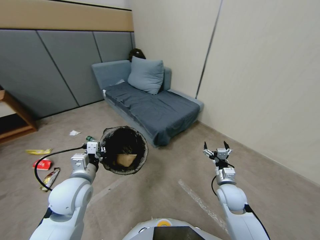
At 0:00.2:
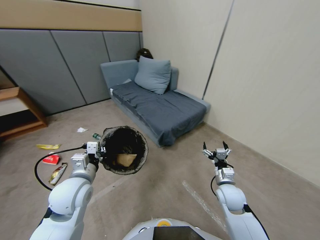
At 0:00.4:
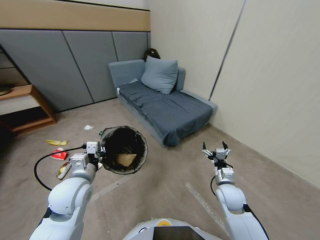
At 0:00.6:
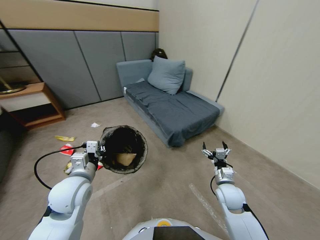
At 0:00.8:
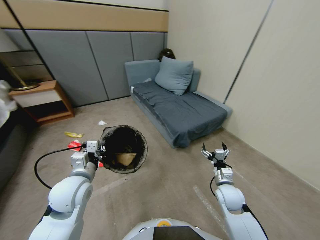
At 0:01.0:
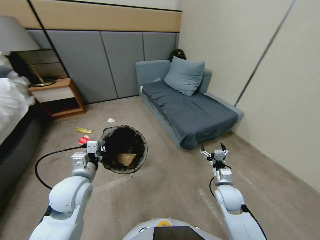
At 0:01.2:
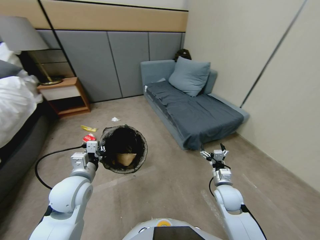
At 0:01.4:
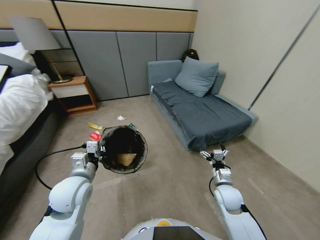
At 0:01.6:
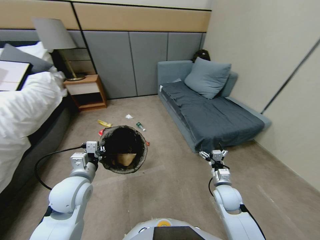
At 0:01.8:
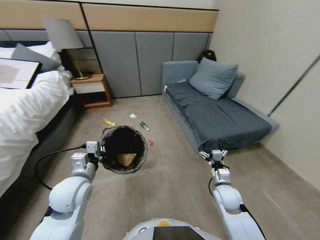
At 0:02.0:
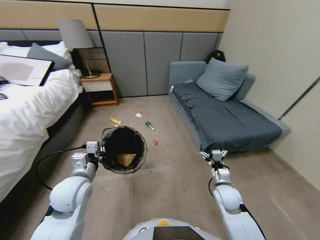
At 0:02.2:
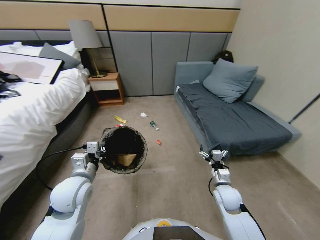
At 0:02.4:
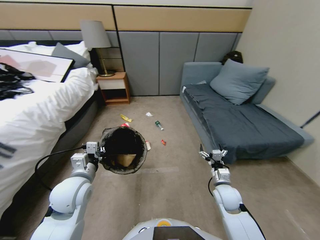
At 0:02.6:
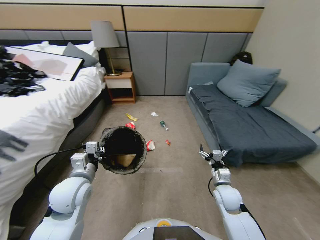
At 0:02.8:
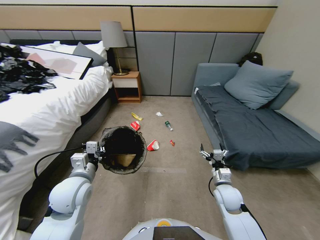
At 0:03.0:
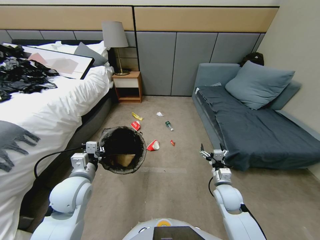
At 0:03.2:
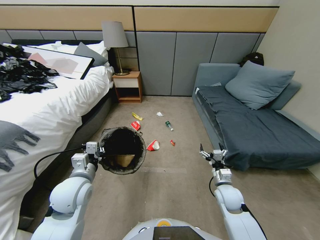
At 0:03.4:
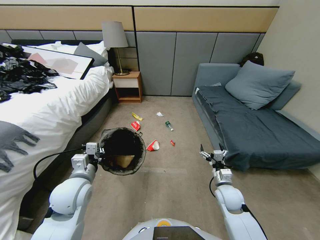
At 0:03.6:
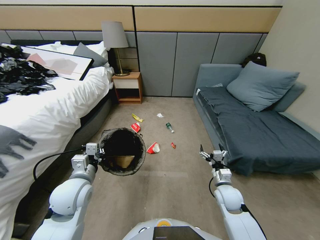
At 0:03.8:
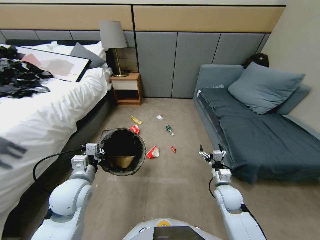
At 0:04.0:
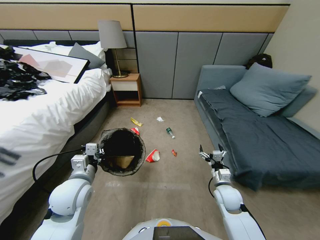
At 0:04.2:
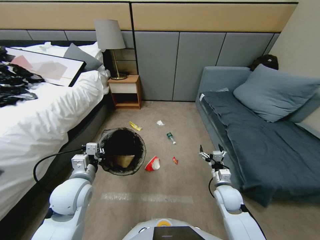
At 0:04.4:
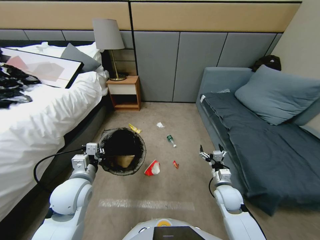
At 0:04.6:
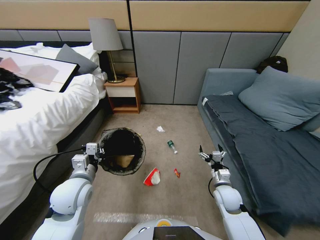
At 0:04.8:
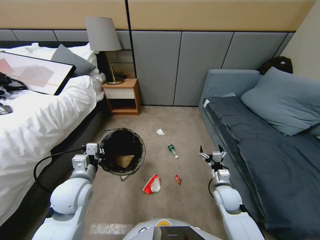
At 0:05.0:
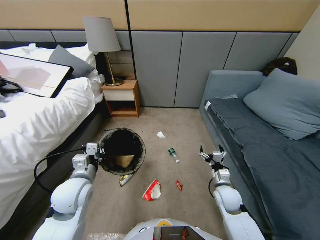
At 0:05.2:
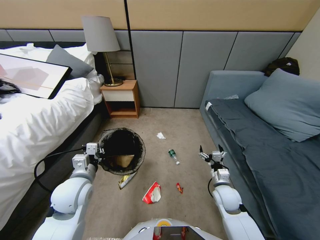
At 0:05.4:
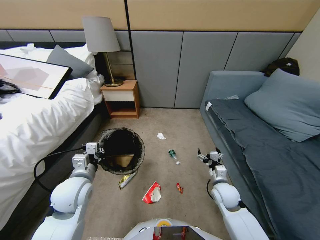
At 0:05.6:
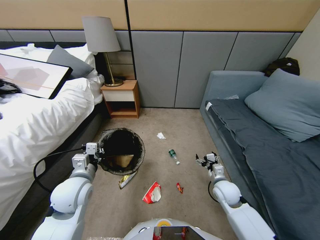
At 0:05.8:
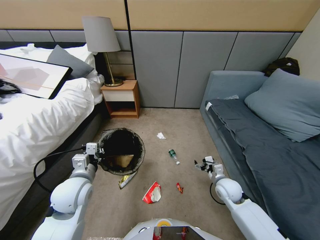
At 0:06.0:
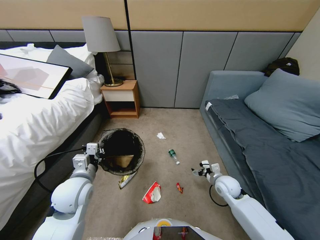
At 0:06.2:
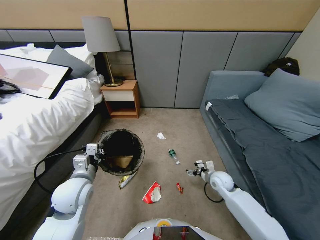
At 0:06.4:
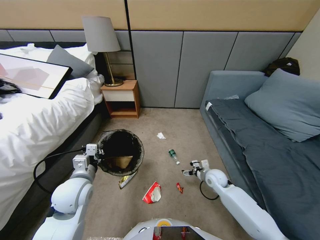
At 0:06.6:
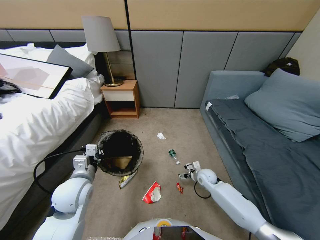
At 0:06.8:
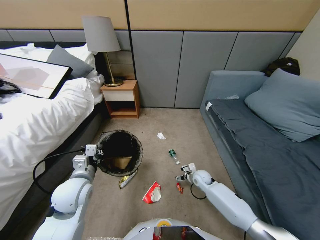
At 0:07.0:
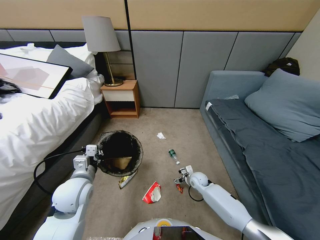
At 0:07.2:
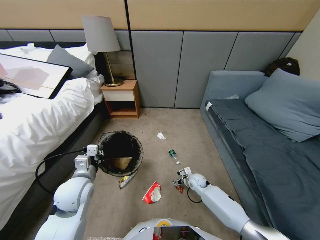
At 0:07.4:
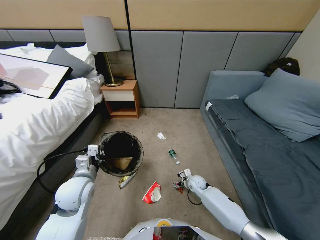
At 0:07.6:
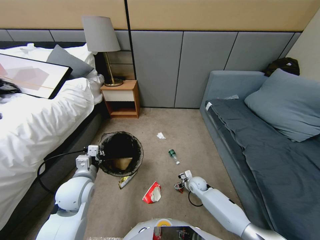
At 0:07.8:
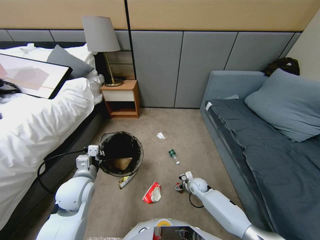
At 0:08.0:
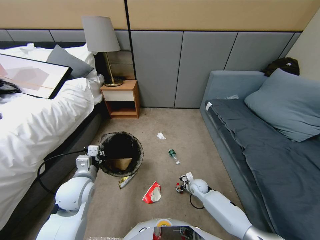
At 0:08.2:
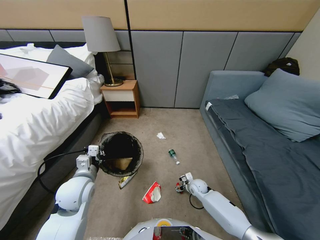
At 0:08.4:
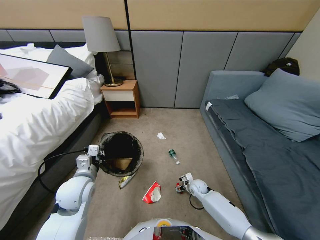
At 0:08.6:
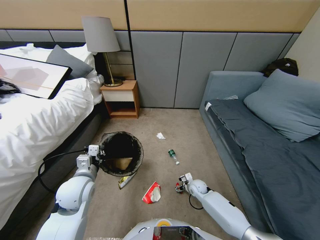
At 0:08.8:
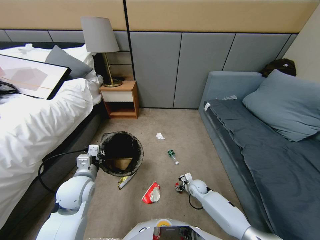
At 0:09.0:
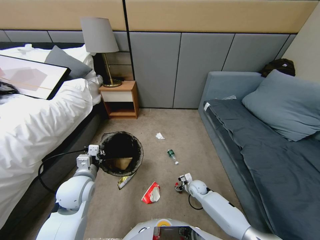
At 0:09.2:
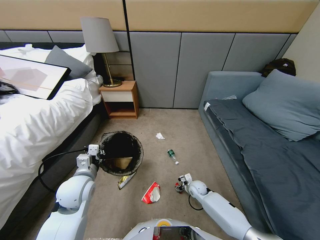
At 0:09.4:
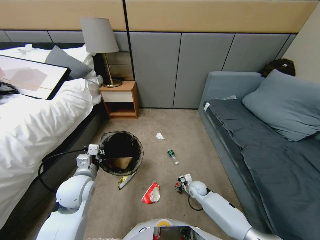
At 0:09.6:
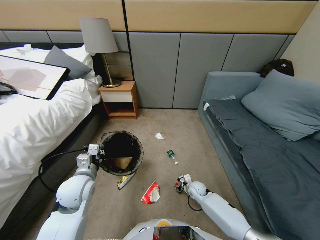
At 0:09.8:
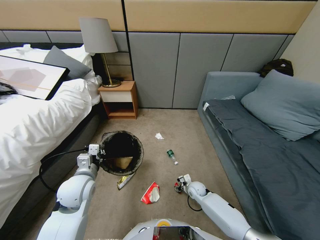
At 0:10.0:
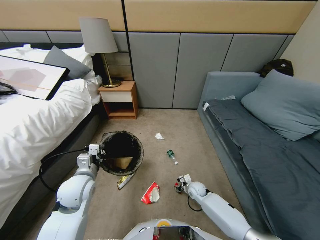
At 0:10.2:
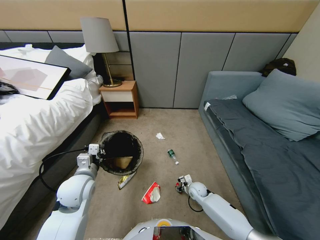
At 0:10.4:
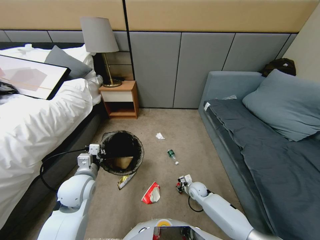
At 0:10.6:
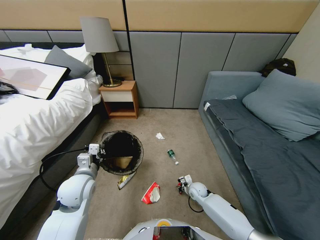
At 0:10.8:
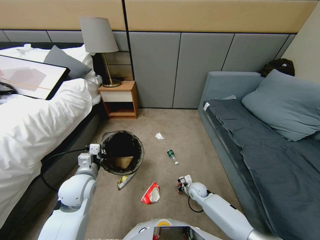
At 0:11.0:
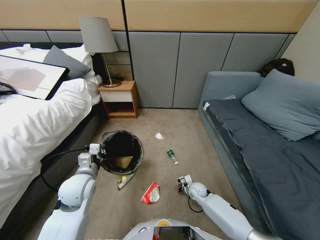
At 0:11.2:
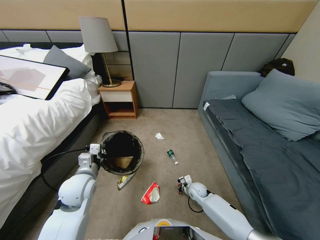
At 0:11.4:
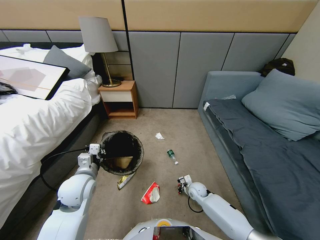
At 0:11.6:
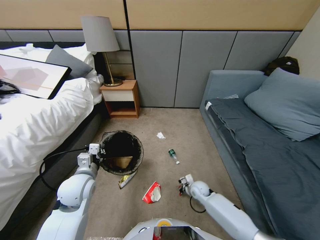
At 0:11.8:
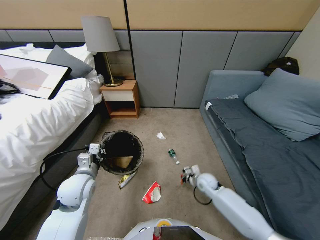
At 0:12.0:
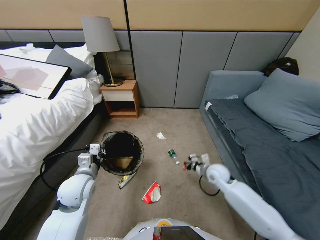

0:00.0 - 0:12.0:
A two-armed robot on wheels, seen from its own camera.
Task of the whole recording: Pick up the trash bin, then pick up the garbage from the floor and place it into the trash bin.
0:04.4 - 0:06.0: The right gripper travels forward by roughly 5 cm.
0:06.0 - 0:07.6: The right gripper shifts roughly 15 cm downward and to the left.
0:07.6 - 0:09.0: There are only small adjustments of the grippers.
0:09.0 - 0:10.4: The right gripper closes up.
0:10.4 - 0:12.0: The right gripper moves upward, about 25 cm, and closes its fingers.

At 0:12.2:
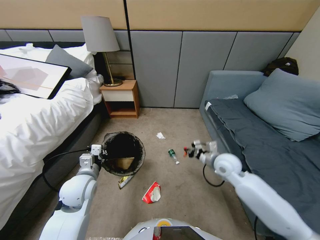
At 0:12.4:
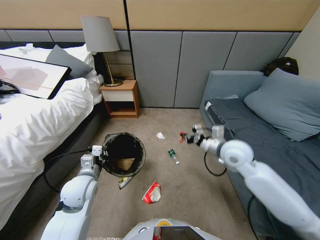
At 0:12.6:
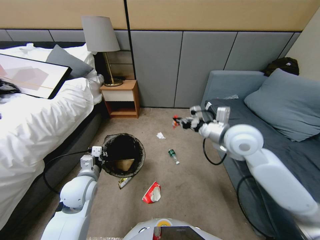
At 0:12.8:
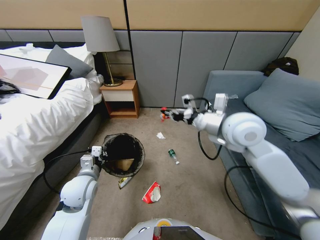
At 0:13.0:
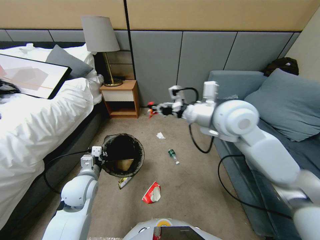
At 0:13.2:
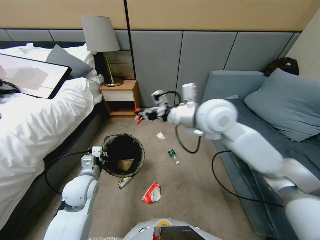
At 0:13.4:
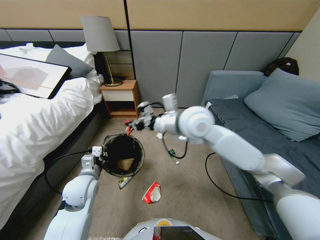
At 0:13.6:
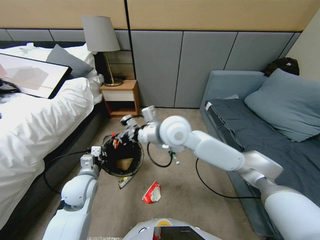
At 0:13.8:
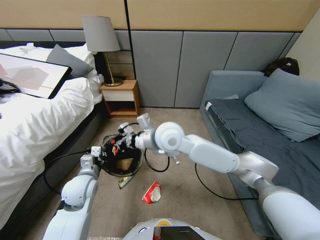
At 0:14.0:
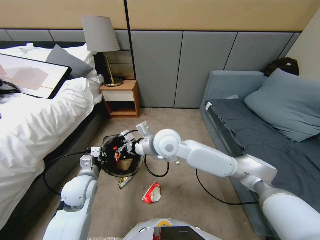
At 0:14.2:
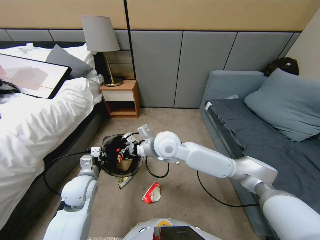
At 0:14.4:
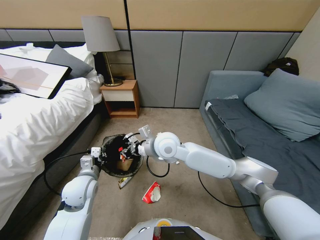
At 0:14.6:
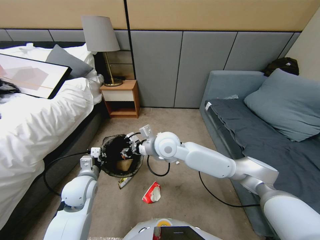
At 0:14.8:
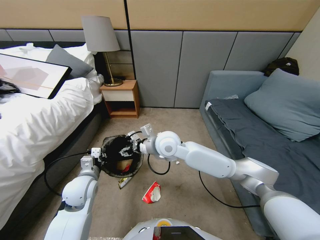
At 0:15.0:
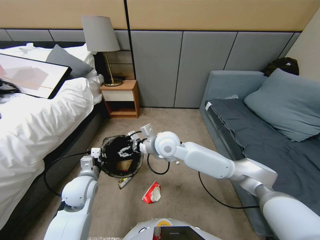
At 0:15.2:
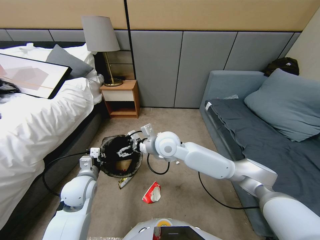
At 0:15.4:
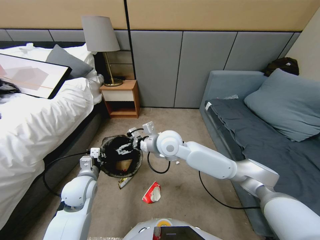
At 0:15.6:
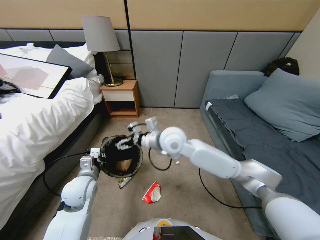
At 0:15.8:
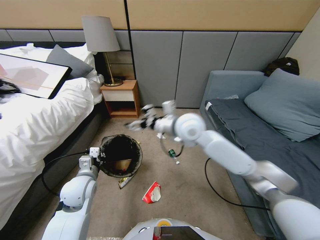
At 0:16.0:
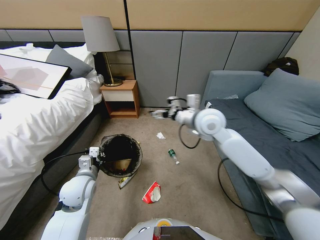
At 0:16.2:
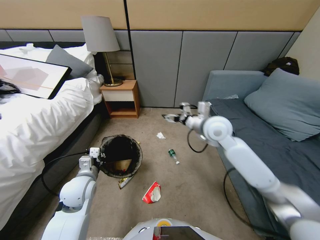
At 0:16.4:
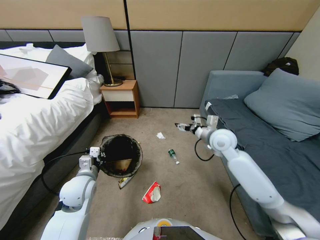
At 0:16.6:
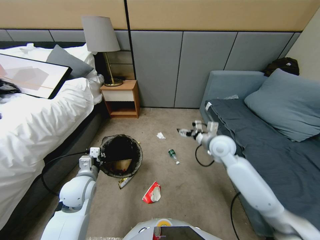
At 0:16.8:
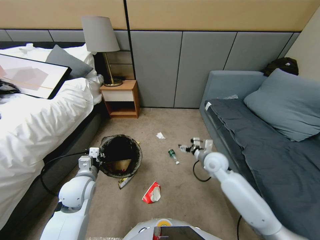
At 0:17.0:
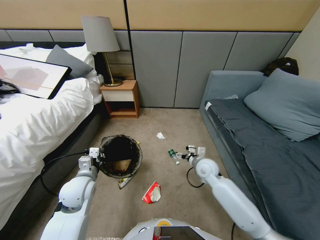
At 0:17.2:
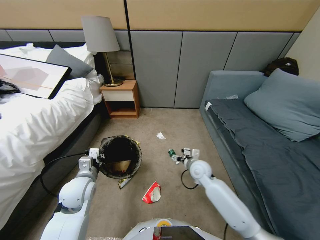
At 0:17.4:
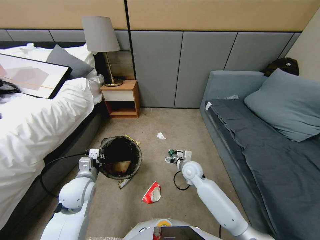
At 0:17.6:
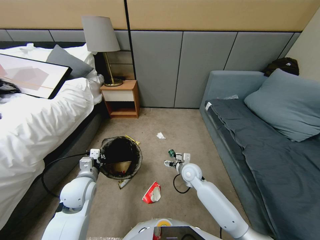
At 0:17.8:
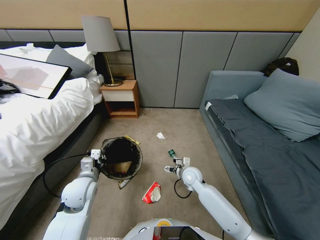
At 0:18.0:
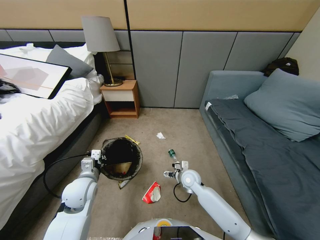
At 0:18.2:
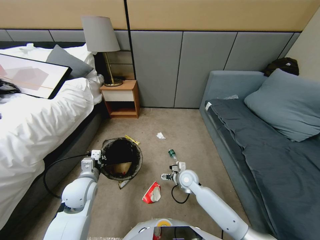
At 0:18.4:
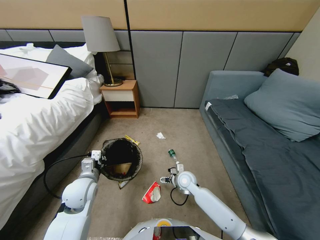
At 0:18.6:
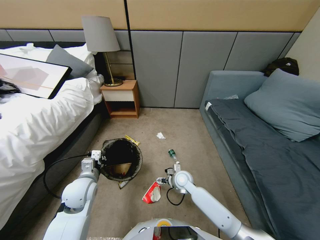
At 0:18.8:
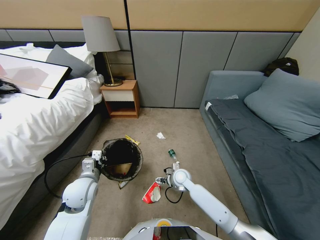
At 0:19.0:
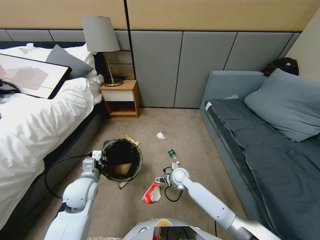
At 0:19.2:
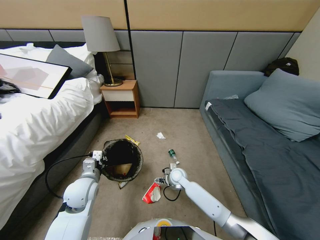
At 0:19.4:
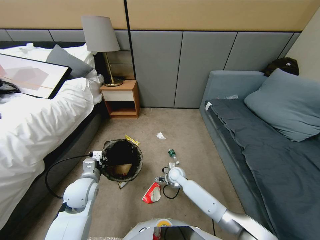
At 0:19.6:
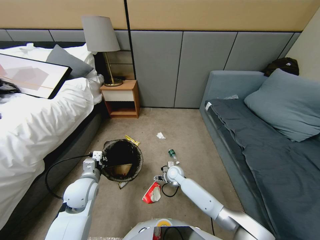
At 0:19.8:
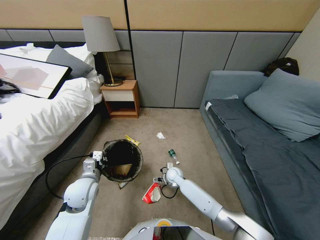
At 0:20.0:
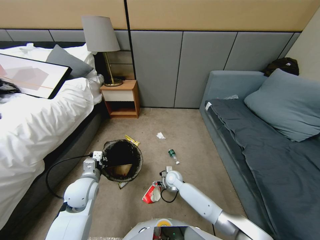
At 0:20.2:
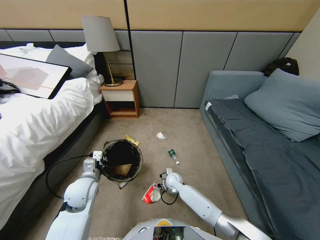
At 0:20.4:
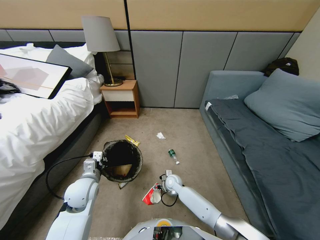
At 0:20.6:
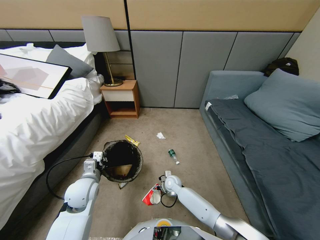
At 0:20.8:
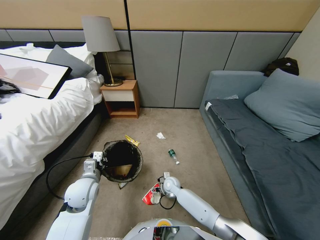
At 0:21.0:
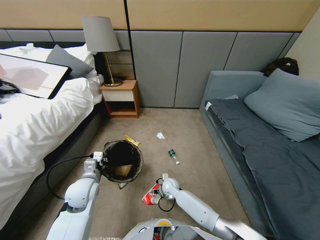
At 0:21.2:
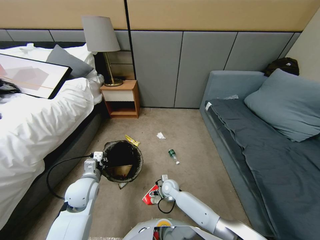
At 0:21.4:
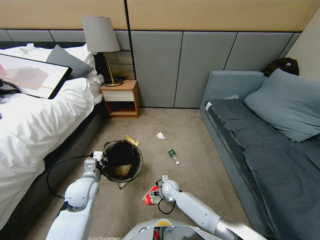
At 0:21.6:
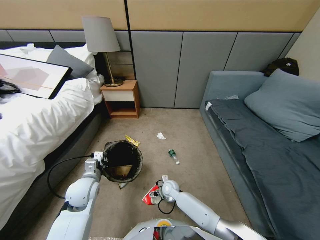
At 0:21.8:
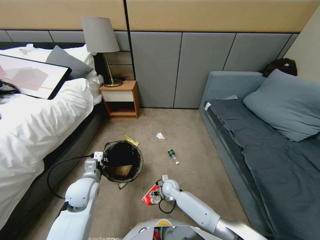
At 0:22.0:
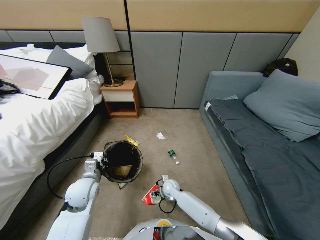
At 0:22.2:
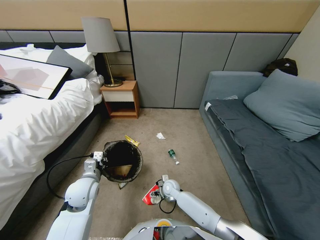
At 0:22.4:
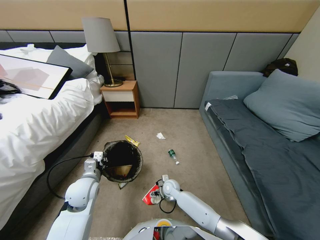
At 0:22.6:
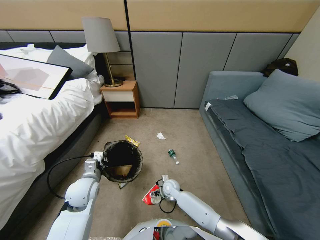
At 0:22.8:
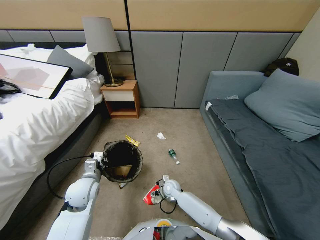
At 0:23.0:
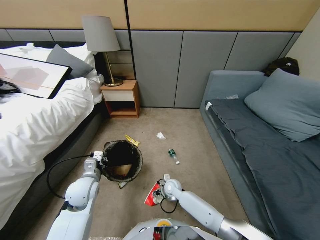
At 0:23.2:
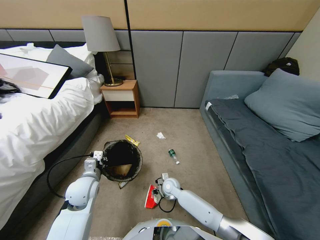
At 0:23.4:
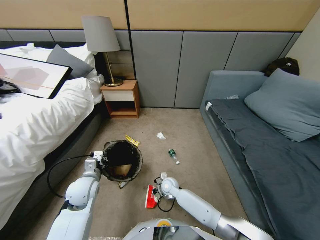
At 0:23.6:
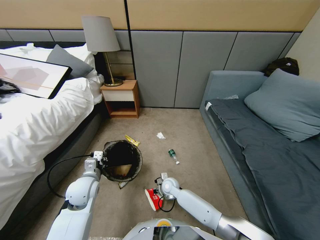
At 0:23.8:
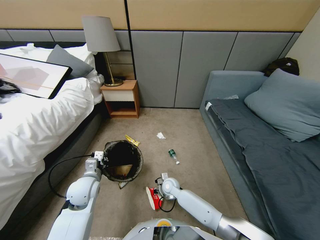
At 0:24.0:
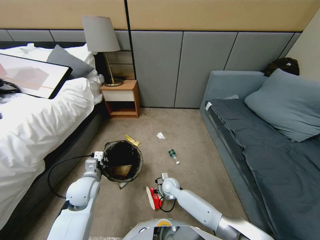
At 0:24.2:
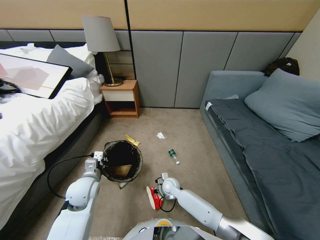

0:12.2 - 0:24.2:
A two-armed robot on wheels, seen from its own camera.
Task of the whole recording: Pick up the trash bin, then pick up the garbage from the floor and place it into the trash bin.
0:12.2 - 0:13.8: The right gripper goes some 25 cm to the left.
0:13.8 - 0:15.2: The right gripper opens.
0:15.2 - 0:16.6: The right gripper shifts approximately 25 cm to the right and downward.
0:16.6 - 0:18.2: The right gripper heads downward and to the left, covering roughly 20 cm.
0:18.2 - 0:19.8: The right gripper is displaced downward and to the left by roughly 10 cm.
0:19.8 - 0:21.2: The right gripper moves approximately 5 cm.
0:21.2 - 0:22.6: Neither gripper changes place.
0:22.6 - 0:24.2: The right gripper moves upward, roughly 5 cm, and closes up.
